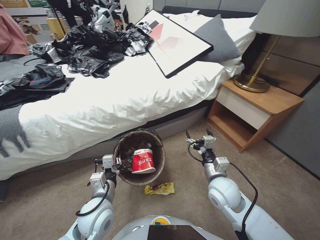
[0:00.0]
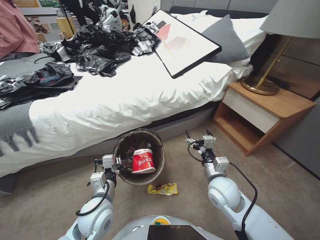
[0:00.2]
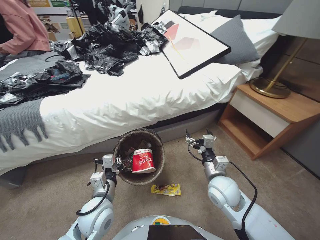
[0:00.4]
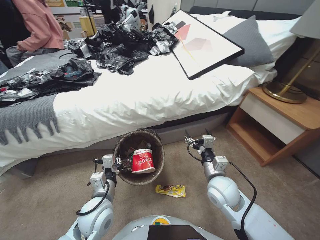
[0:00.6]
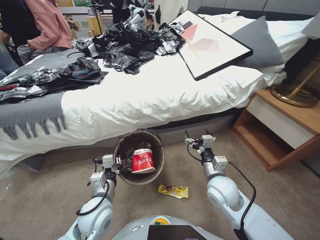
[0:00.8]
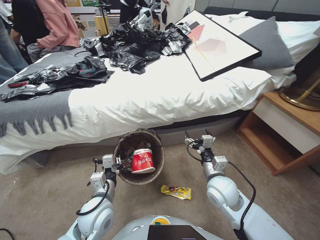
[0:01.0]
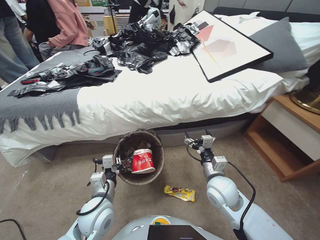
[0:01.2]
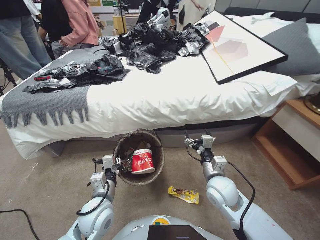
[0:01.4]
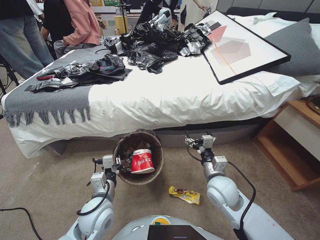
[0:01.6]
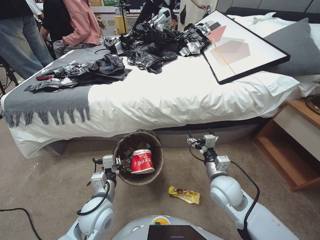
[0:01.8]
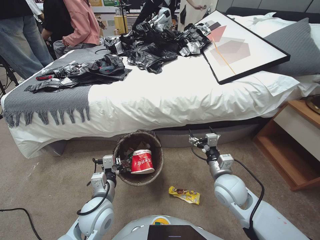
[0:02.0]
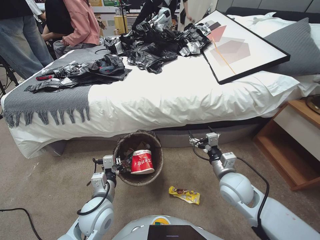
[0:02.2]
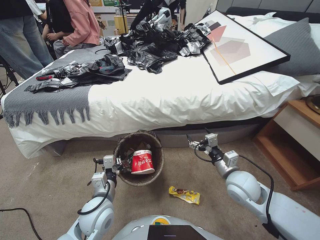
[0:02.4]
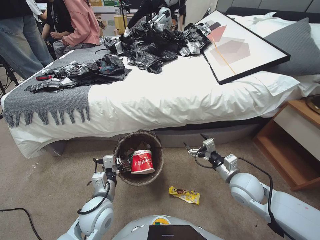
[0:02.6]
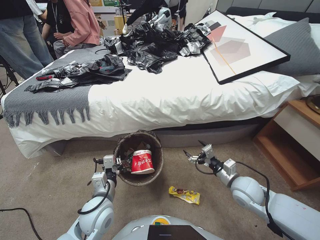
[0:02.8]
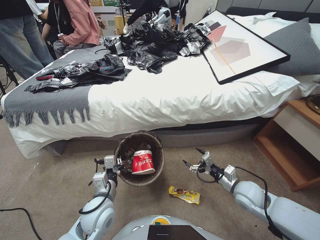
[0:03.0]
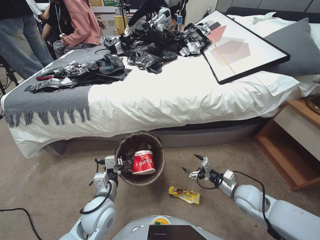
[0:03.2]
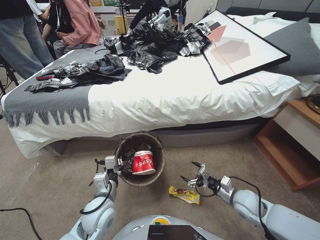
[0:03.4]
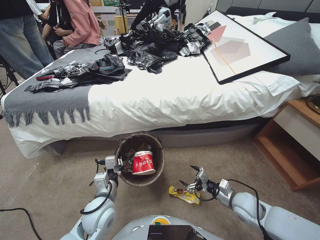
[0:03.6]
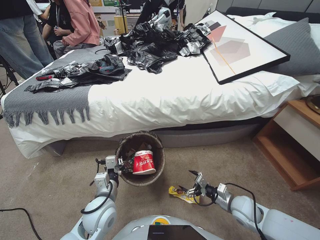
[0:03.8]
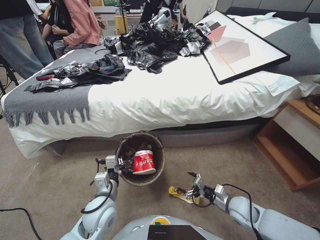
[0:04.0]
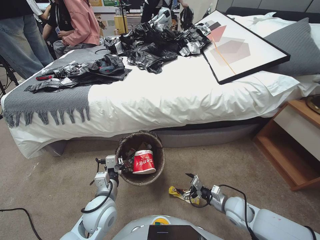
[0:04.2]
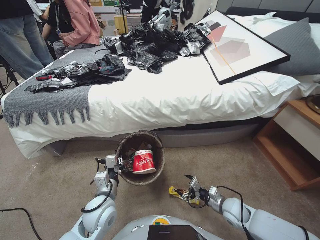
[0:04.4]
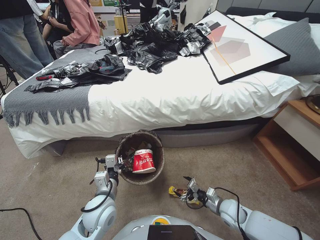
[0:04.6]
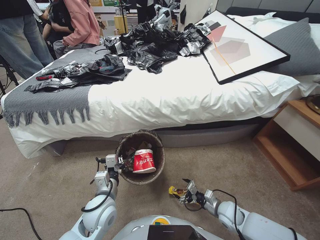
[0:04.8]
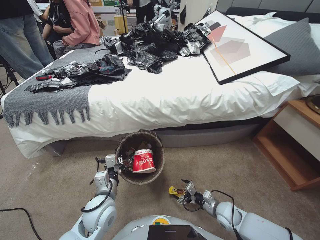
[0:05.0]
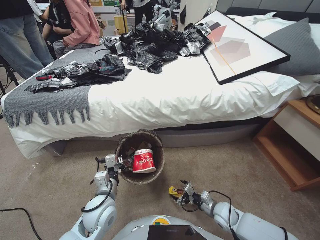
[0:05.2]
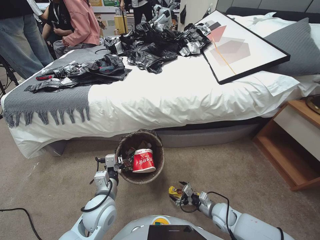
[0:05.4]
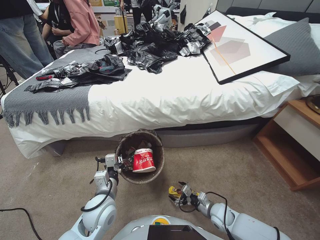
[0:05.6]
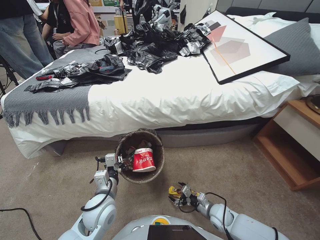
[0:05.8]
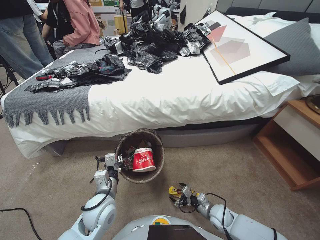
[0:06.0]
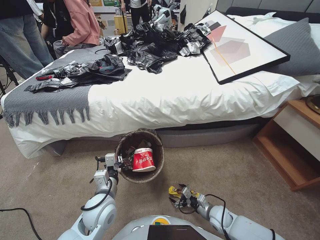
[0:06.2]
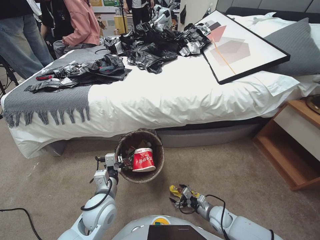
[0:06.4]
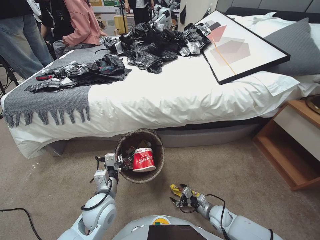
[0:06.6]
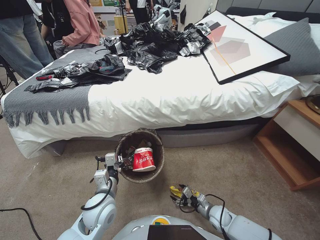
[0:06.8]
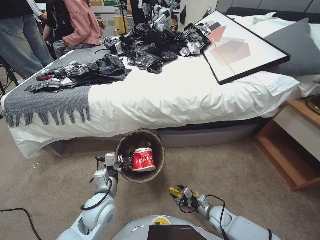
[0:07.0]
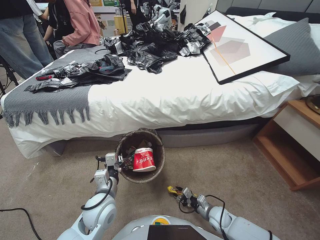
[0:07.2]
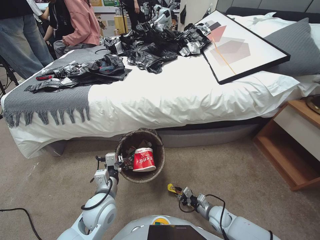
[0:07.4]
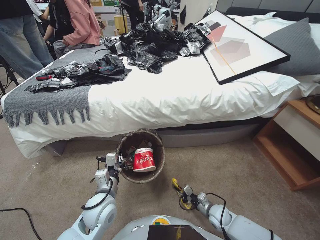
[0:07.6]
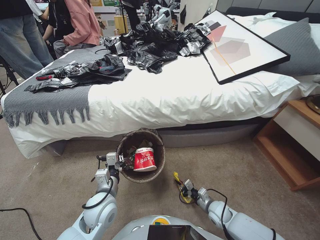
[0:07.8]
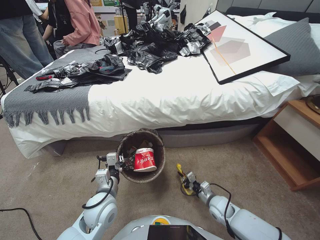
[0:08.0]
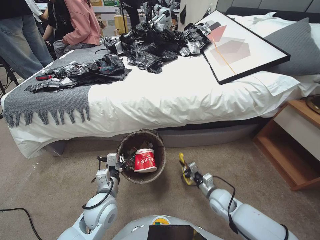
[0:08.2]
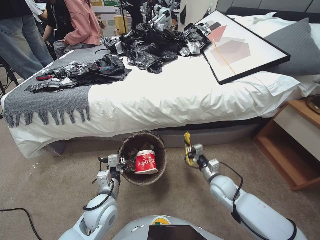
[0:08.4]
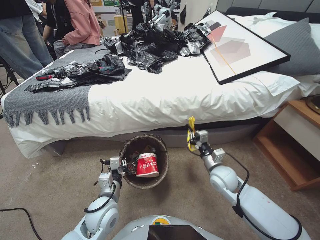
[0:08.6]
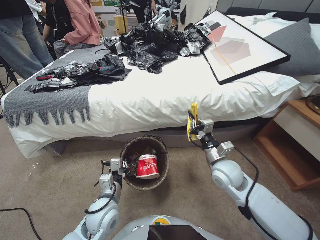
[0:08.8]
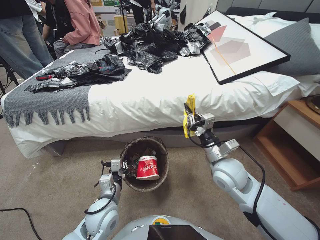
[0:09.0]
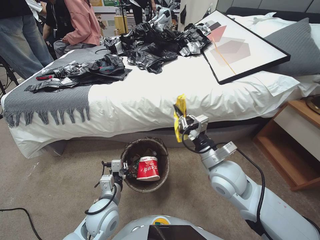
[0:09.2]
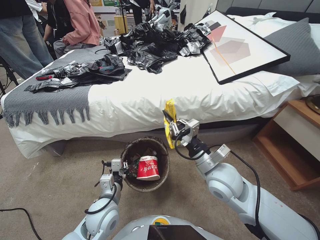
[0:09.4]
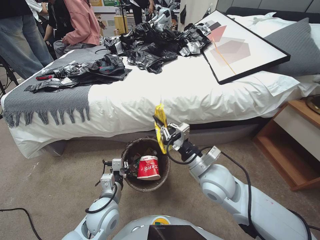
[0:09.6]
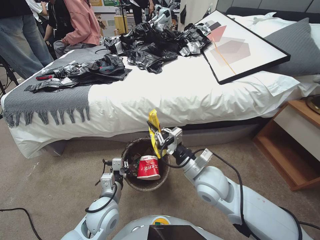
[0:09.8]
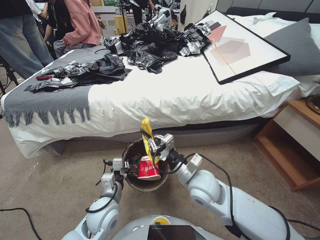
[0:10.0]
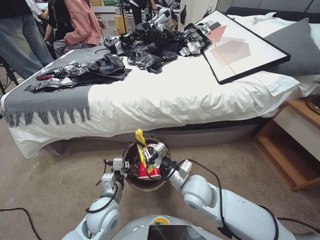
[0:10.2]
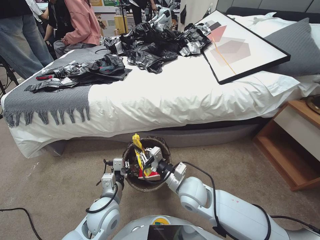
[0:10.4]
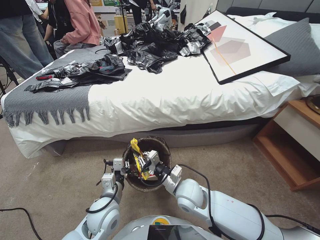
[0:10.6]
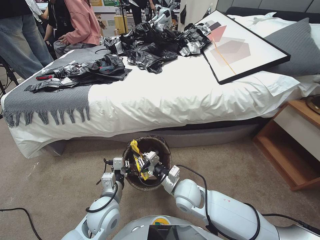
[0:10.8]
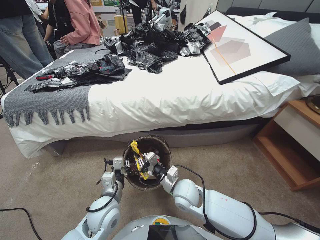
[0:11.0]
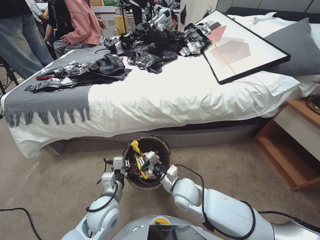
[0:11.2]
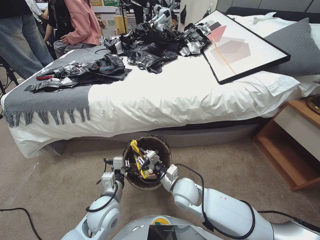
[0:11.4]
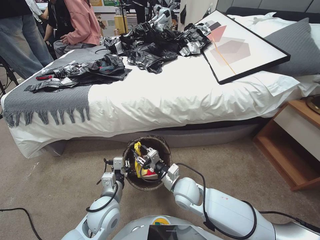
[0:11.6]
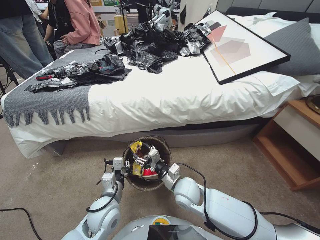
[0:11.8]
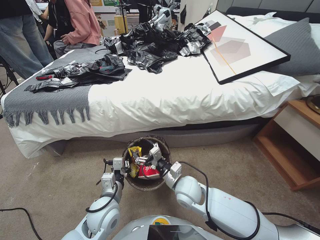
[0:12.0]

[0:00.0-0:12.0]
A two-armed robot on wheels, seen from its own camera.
Task of the whole recording: Pick up the trash bin, then pick up the garbage from the floor and place it into the trash bin.
0:01.6 to 0:03.0: The right gripper moves to the right, some 10 cm.
0:03.0 to 0:04.4: The right gripper goes about 15 cm downward.
0:04.4 to 0:06.0: The right gripper shifts roughly 10 cm downward.
0:06.0 to 0:07.6: The right gripper closes.
0:07.6 to 0:09.0: The right gripper heads upward, covering approximately 35 cm.
0:09.0 to 0:10.4: The right gripper heads to the left and downward, covering roughly 15 cm.
0:10.4 to 0:12.0: The right gripper opens up.

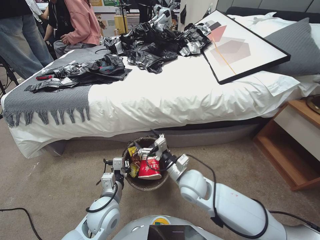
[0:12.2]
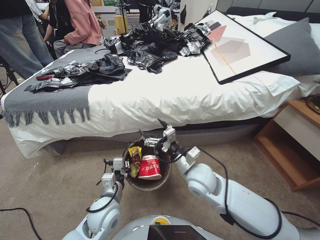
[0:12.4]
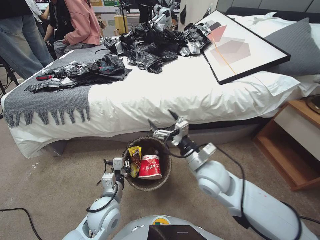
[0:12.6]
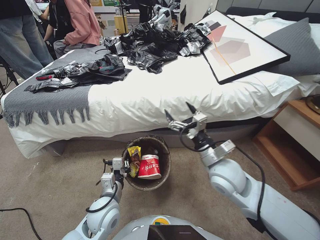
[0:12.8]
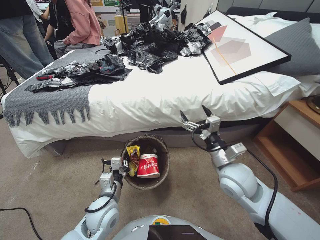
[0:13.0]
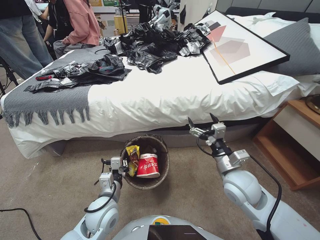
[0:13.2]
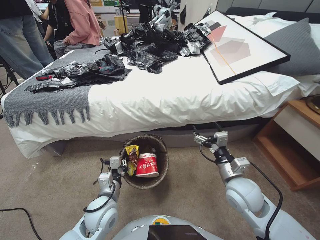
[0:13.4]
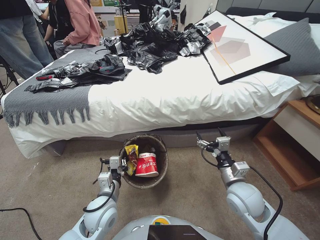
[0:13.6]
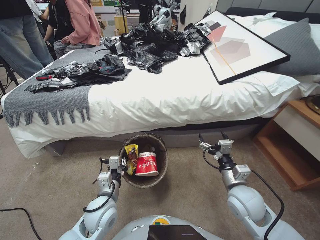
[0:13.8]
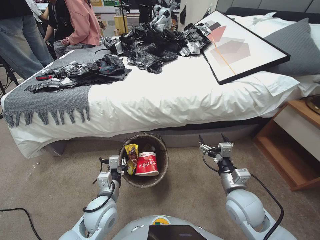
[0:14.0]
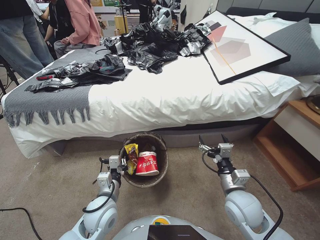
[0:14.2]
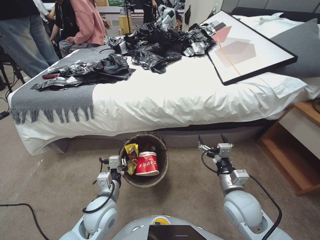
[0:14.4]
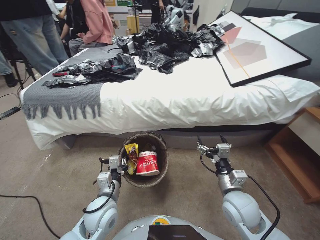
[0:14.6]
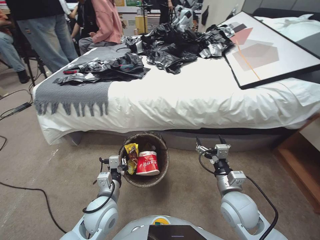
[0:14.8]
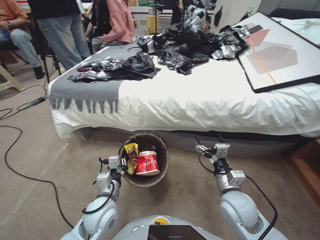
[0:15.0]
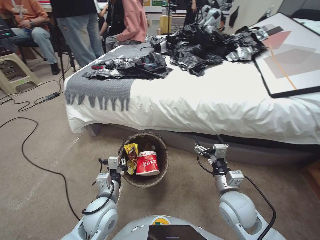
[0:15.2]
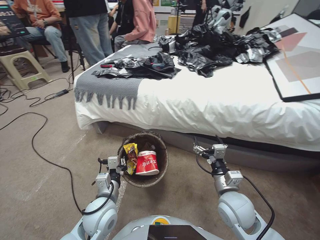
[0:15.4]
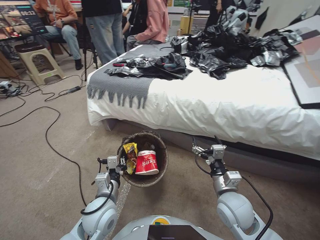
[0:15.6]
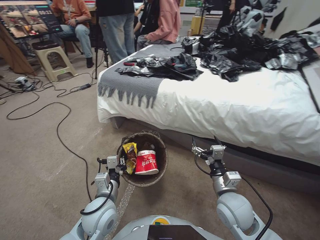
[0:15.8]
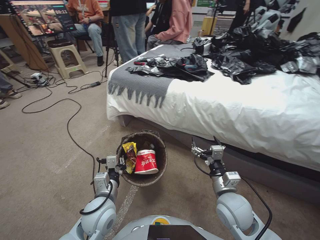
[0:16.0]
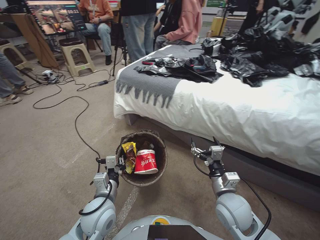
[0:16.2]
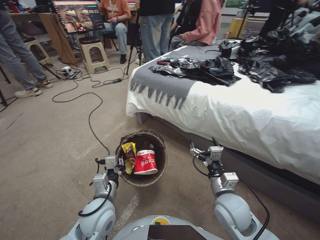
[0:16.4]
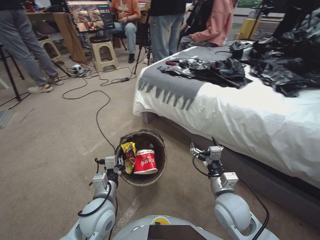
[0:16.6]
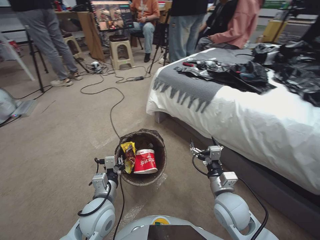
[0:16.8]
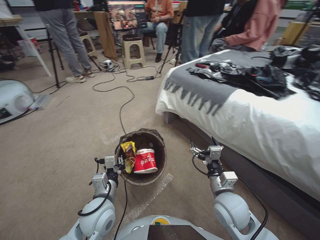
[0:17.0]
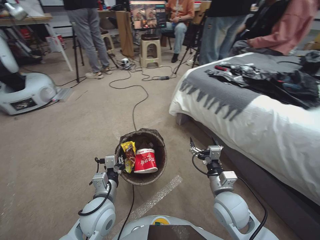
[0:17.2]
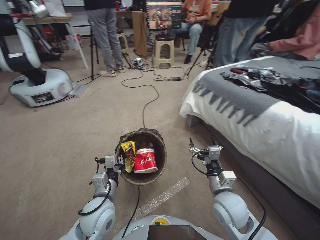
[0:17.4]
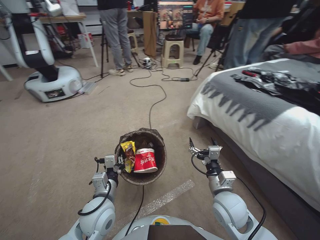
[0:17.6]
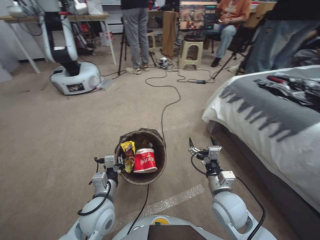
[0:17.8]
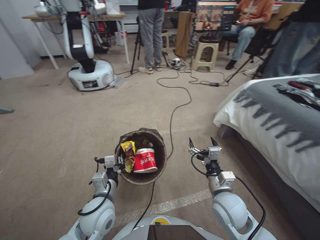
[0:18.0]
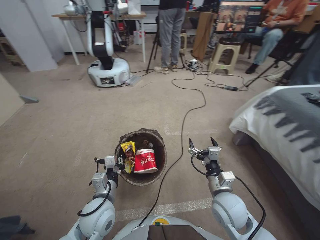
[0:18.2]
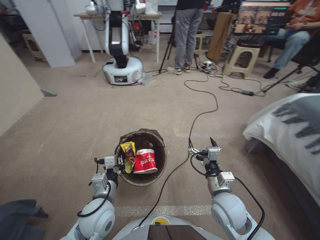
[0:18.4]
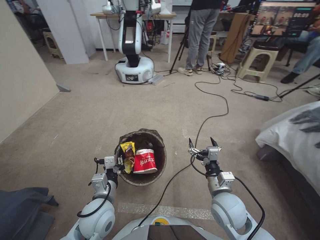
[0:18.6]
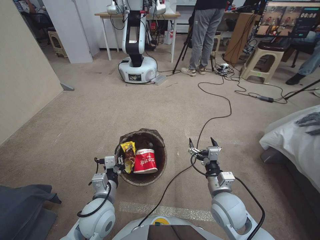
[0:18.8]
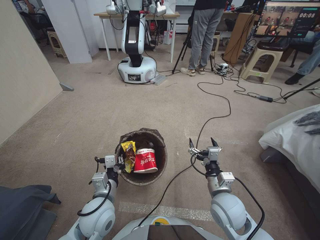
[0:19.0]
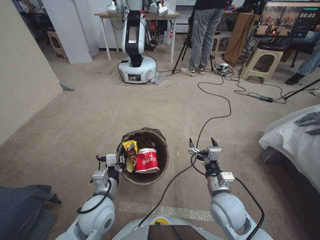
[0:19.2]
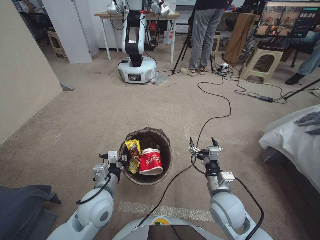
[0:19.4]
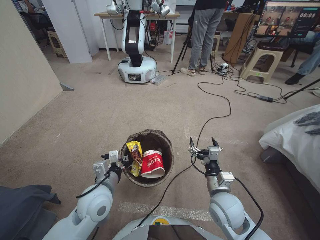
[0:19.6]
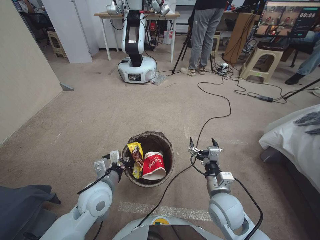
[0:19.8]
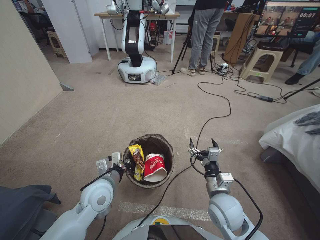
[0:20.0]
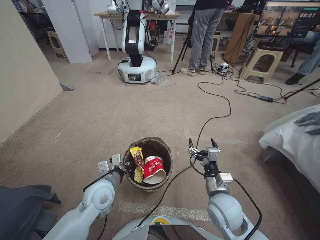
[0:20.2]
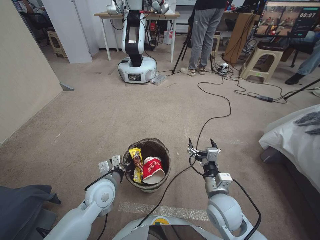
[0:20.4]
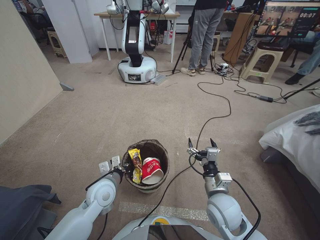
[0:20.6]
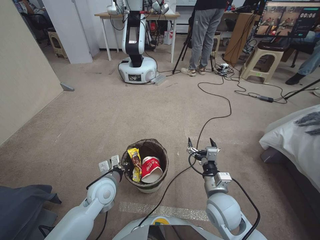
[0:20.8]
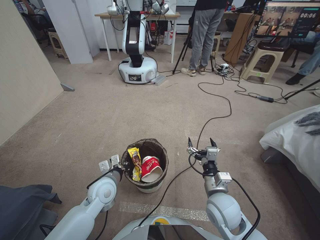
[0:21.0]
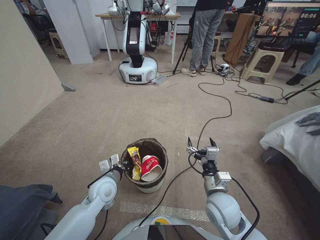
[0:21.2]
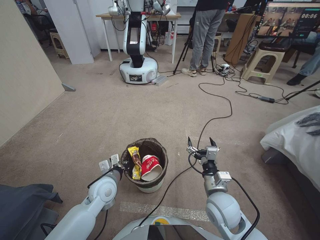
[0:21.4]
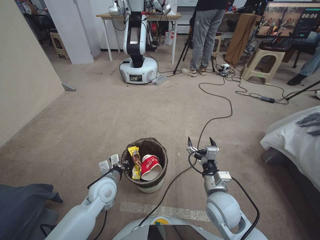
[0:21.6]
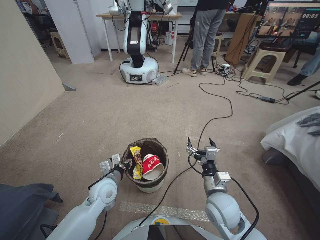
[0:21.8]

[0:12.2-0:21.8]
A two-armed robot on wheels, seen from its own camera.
Task of the whole recording: Pick up the trash bin, then pick up the garbage from the floor and place it into the trash bin.
0:12.2 to 0:13.8: The right gripper shifts about 15 cm to the right.
0:18.6 to 0:20.2: The left gripper changes place by approximately 5 cm.
0:20.2 to 0:21.8: The left gripper heads downward, covering some 10 cm.

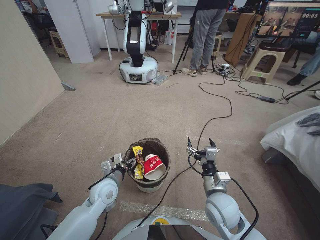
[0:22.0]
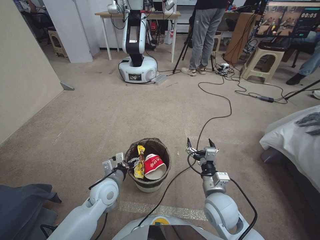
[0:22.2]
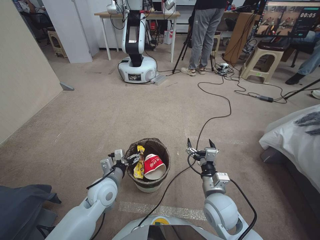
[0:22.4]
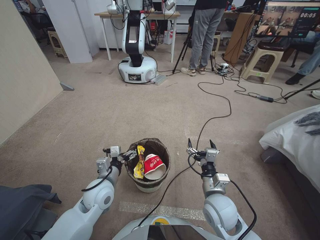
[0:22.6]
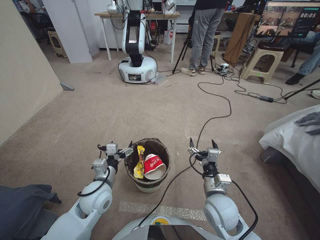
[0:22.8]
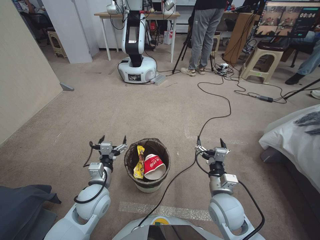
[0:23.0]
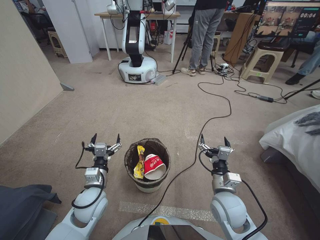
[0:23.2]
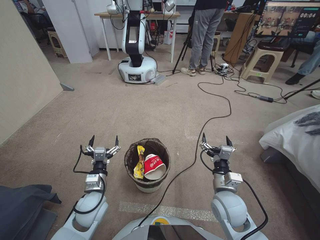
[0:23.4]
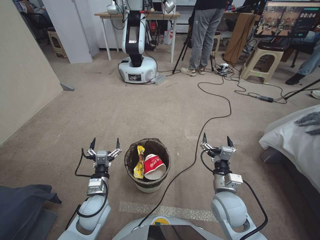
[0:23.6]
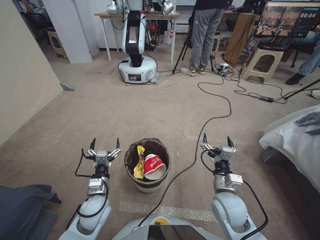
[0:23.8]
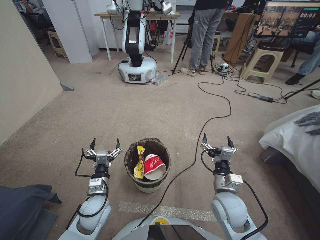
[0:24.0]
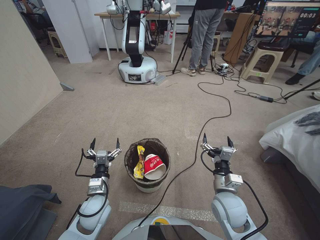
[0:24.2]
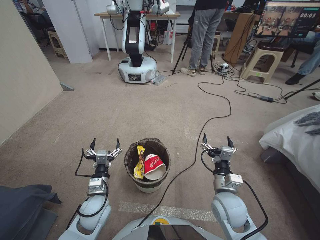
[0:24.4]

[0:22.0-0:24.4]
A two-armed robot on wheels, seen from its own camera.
Task of the whole recording: Pick up the trash bin, then pick up the garbage from the floor and place it into the trash bin.
0:22.0 to 0:23.2: The left gripper changes place by roughly 5 cm, and opens its fingers.
0:23.2 to 0:24.4: The left gripper moves downward, some 5 cm.
